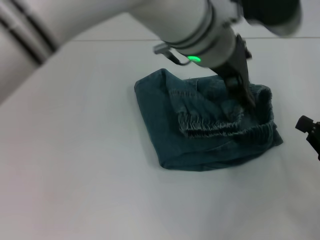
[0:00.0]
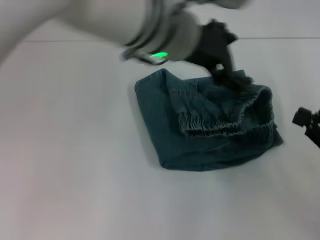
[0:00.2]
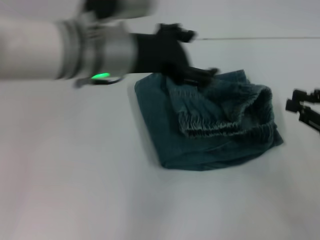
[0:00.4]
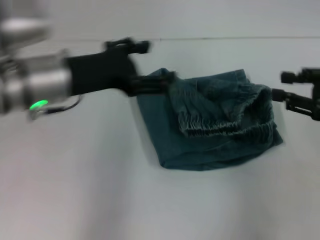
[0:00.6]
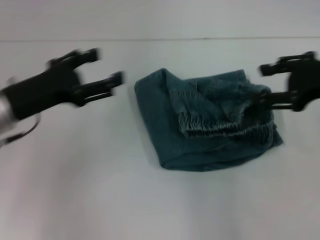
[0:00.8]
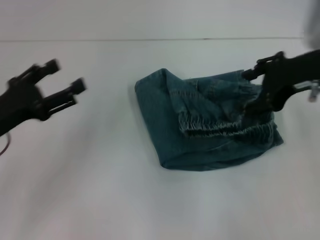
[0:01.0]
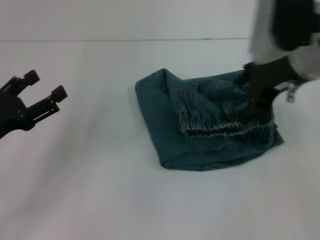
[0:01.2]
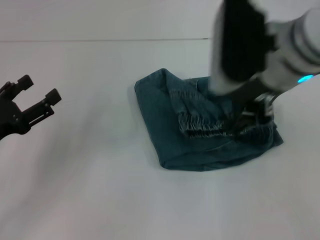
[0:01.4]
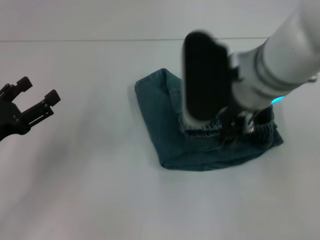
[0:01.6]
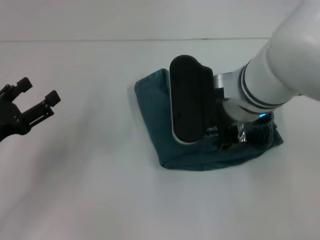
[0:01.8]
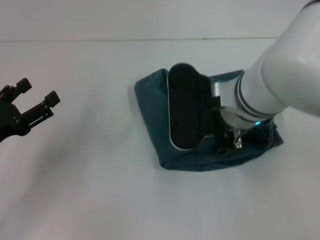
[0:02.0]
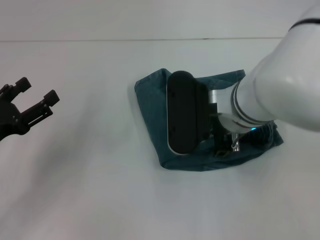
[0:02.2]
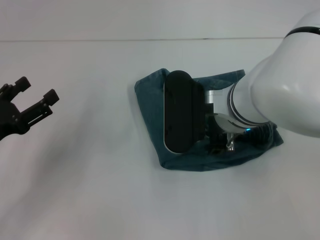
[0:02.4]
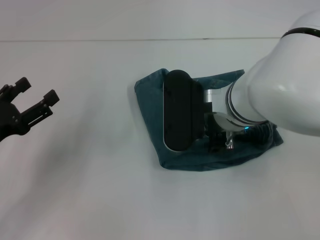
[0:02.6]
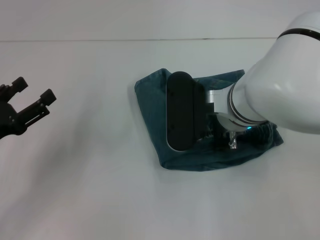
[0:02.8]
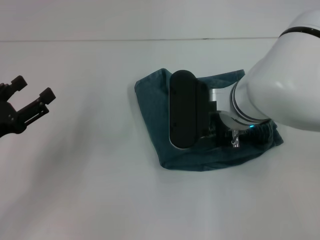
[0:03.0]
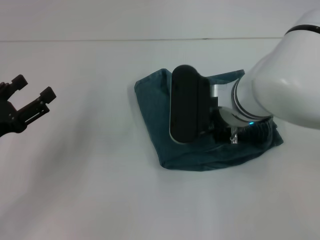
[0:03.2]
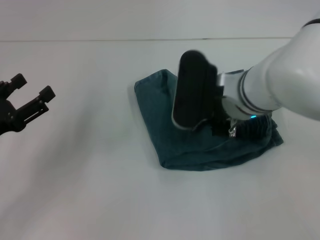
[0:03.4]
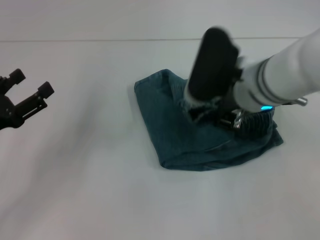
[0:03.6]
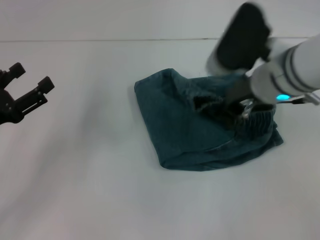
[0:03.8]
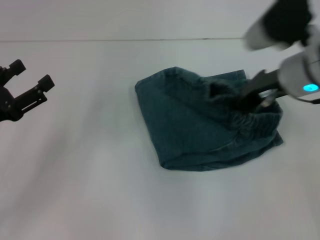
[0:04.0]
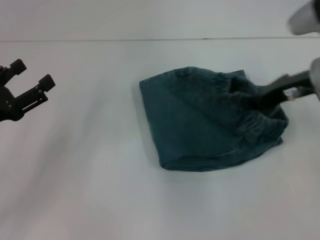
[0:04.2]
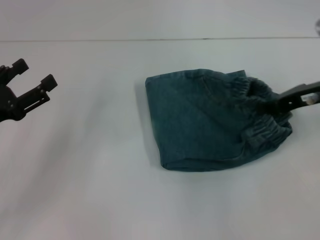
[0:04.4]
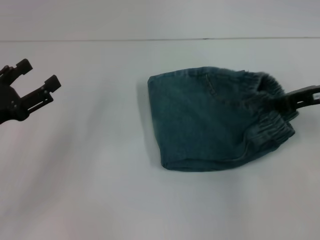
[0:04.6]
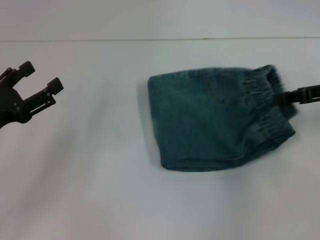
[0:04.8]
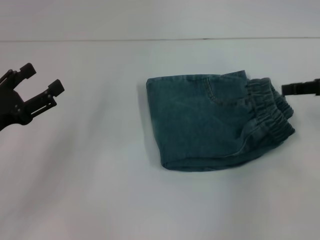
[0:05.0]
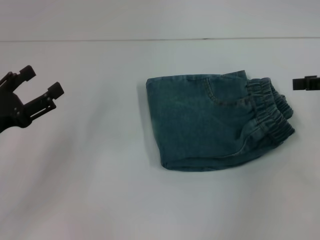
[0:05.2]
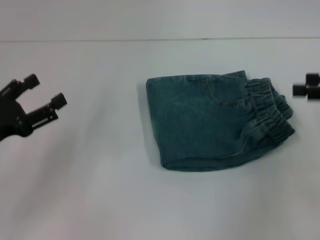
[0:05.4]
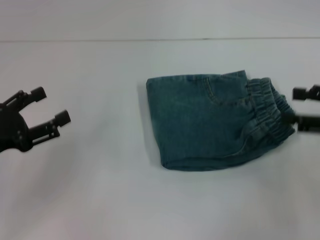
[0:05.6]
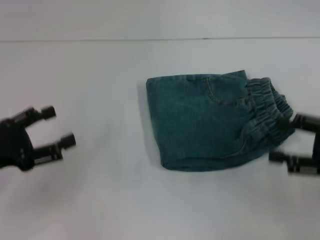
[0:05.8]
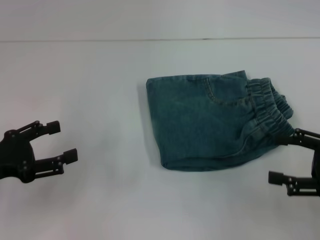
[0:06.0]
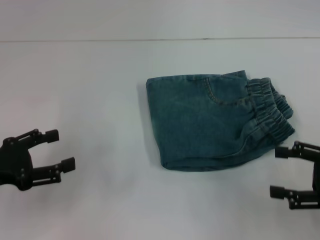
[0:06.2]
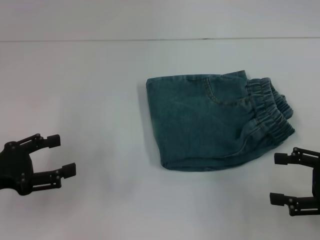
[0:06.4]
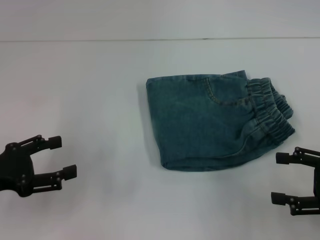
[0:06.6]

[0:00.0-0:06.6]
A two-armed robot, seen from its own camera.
Step, 0:00.4 to 0:04.8: Adjust the pants with your right hand.
0:00.0 to 0:01.6: The right gripper travels to the left, upward and forward by about 30 cm, and opens its fingers. Meanwhile the left gripper shifts approximately 35 cm to the left and downward.
0:01.6 to 0:03.2: The right gripper travels downward by approximately 5 cm, and closes.
0:03.2 to 0:05.0: The right gripper moves to the right, approximately 25 cm.
0:05.0 to 0:06.6: The right gripper heads backward and downward, covering some 15 cm, and opens up.

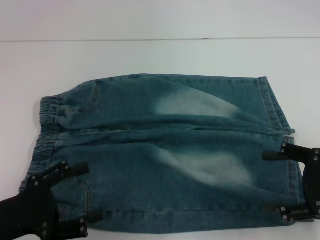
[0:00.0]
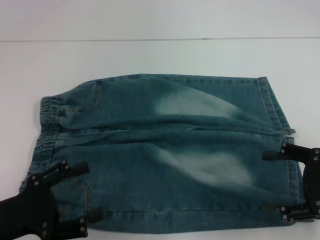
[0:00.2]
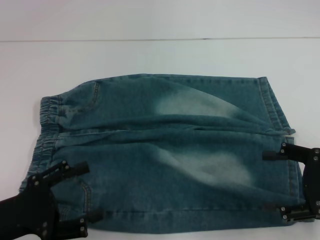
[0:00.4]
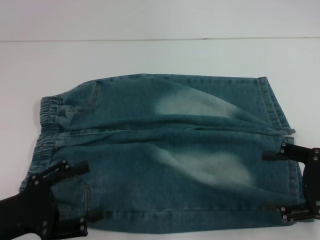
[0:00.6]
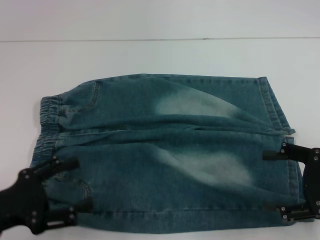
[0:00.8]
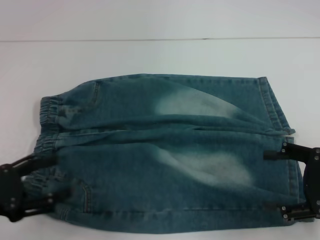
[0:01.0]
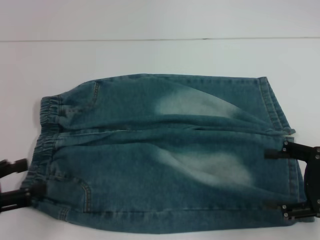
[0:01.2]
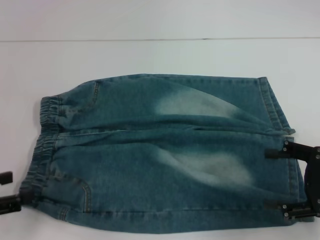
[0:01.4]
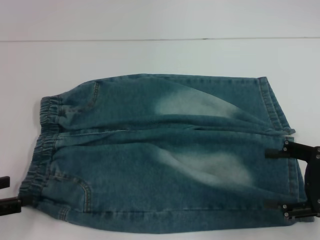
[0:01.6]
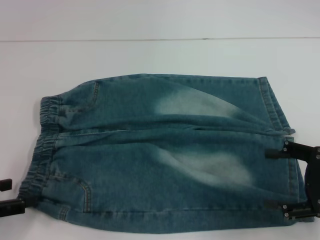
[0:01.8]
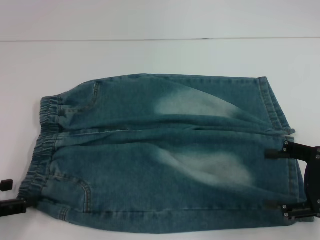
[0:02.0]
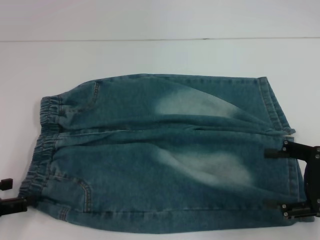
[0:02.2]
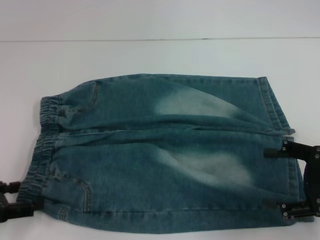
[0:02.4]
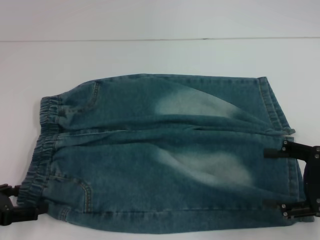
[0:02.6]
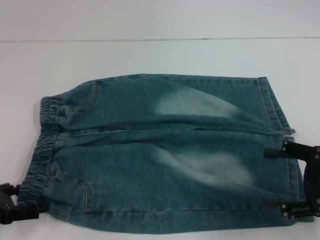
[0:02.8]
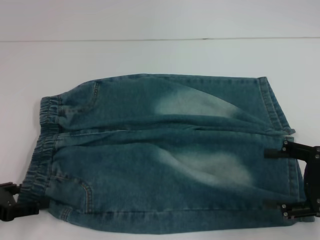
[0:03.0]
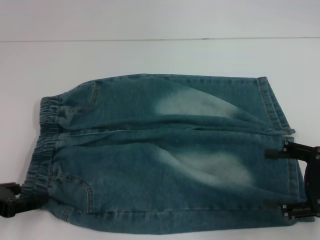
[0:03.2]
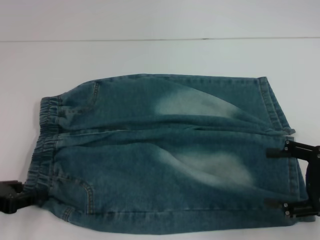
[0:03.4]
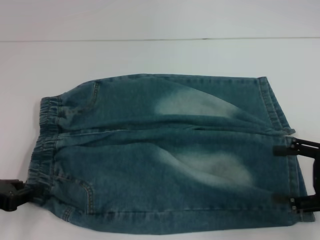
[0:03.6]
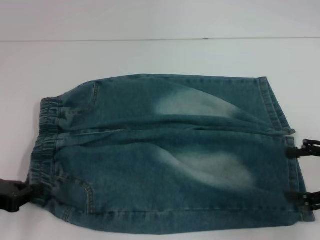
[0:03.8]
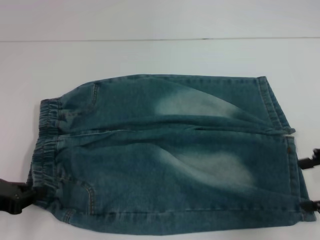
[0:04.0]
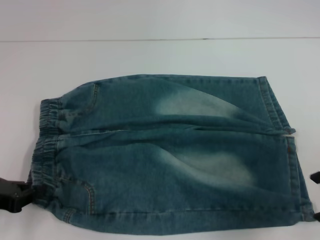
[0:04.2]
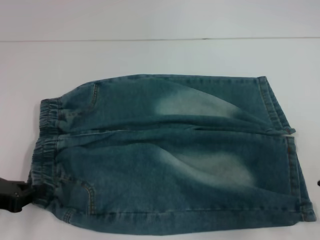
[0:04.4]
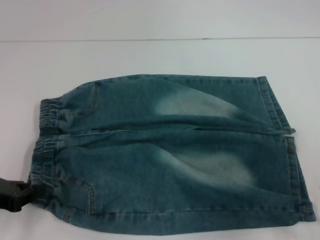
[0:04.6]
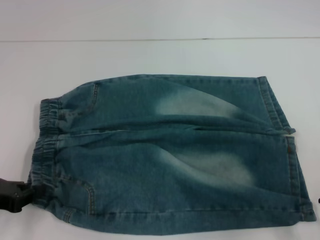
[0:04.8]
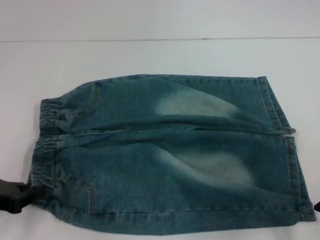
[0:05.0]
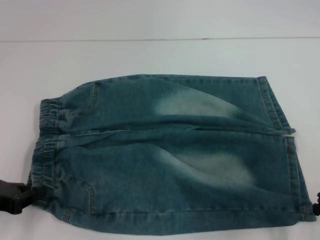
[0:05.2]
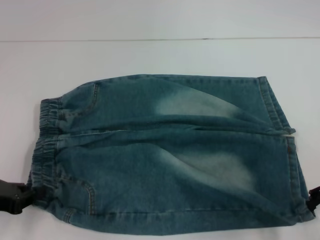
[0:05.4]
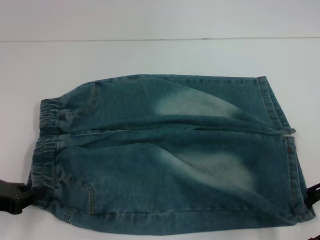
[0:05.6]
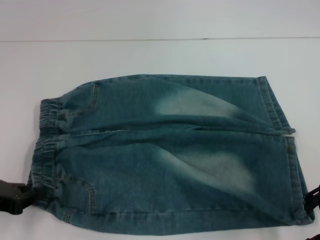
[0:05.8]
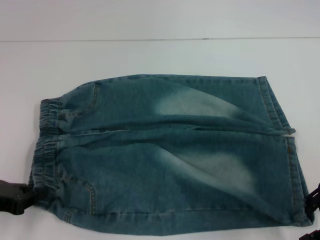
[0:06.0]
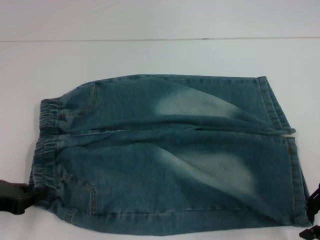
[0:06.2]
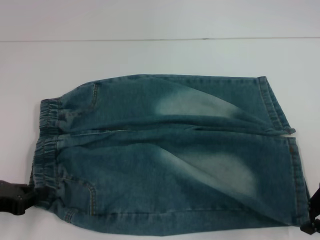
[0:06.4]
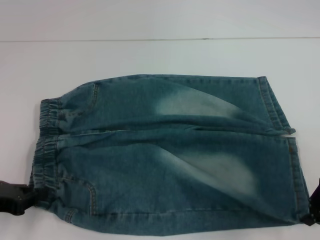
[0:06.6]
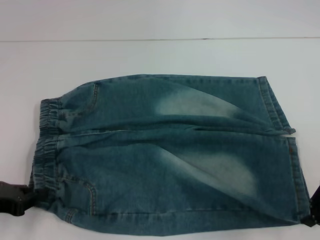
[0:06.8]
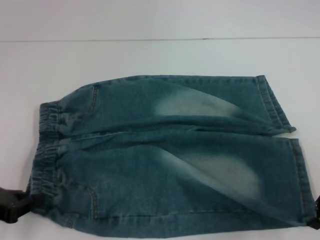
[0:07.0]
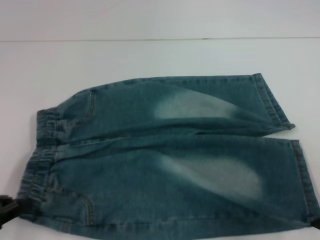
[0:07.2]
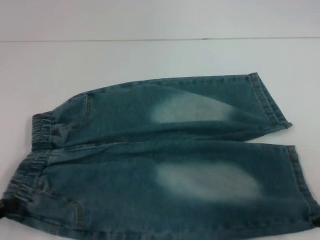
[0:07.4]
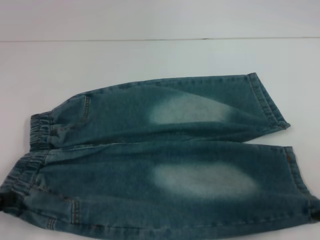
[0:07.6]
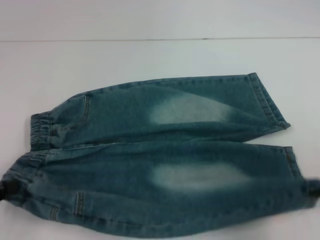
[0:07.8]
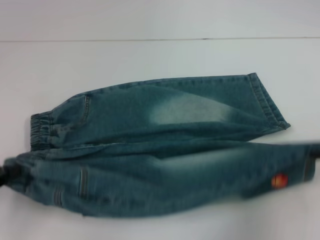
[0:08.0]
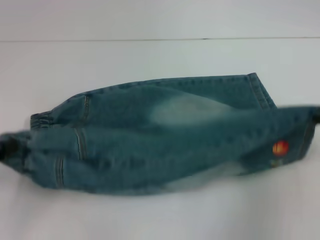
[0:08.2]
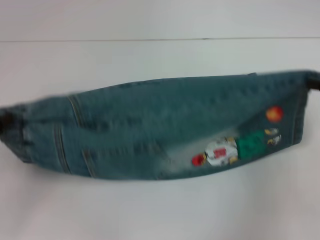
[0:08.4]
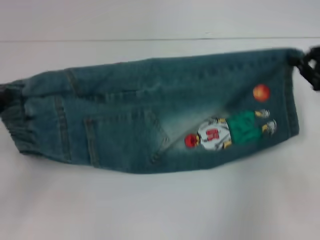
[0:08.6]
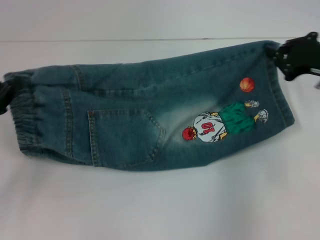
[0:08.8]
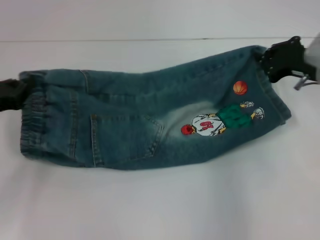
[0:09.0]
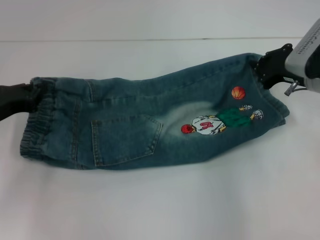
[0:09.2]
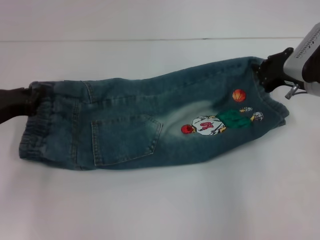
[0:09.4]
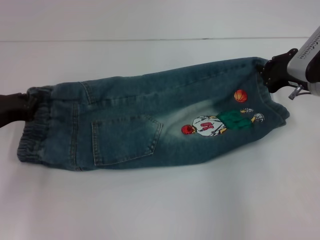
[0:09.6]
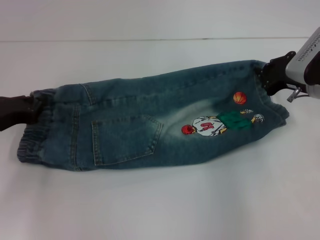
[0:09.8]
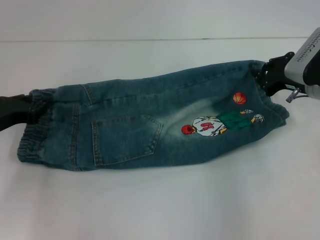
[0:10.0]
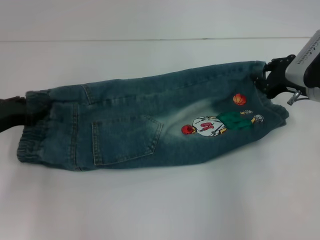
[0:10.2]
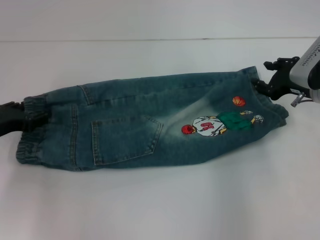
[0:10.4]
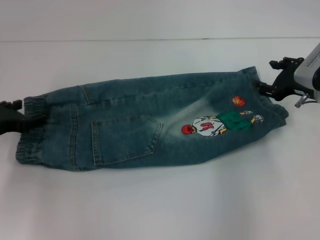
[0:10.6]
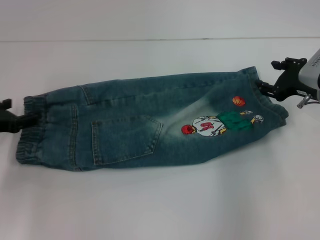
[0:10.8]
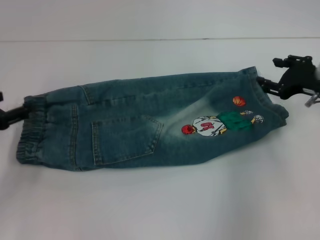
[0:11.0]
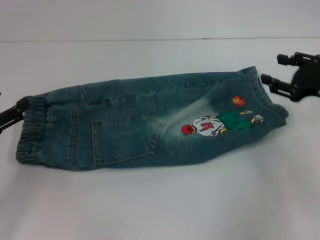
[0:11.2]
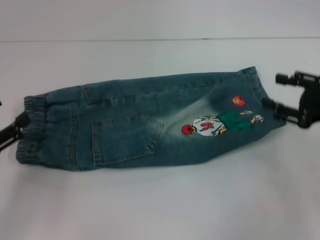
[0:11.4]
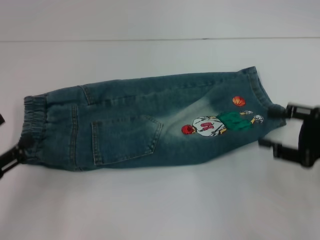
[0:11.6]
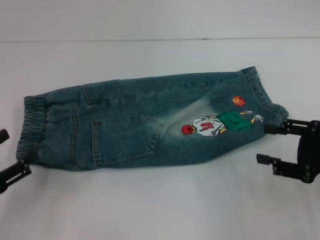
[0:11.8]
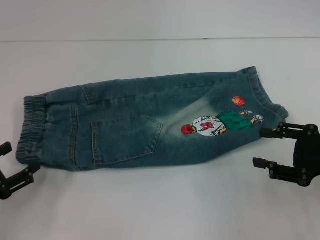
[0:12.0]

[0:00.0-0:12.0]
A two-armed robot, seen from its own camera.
Step, 0:00.0 to 0:03.2: Hold the lower left waistband with your left hand.
Step, 0:03.4 to 0:06.4: Grab the lower right pant leg with your right hand.
Step, 0:06.8 to 0:10.4: Fold upward with your right hand.
0:00.0 to 0:01.6: The left gripper shifts some 10 cm to the left.
0:01.6 to 0:03.0: There are only small adjustments of the grippers.
0:03.0 to 0:04.4: The left gripper closes. Meanwhile the right gripper shifts about 5 cm upward.
0:04.4 to 0:06.0: The grippers move only a little.
0:06.0 to 0:07.6: The right gripper closes its fingers. The left gripper shifts by about 5 cm.
0:07.6 to 0:09.0: The two grippers go some 15 cm forward.
0:09.0 to 0:10.4: The left gripper opens its fingers.
0:10.4 to 0:12.0: Both grippers move backward, roughly 15 cm. The right gripper opens its fingers. Meanwhile the left gripper opens up.

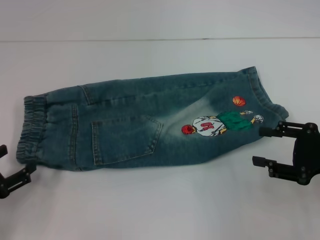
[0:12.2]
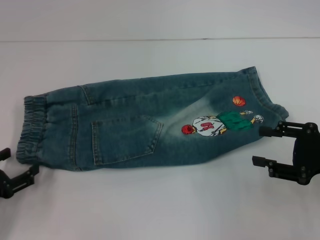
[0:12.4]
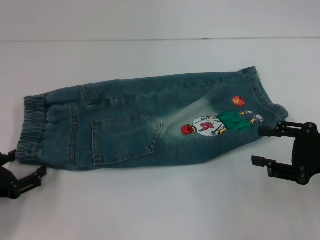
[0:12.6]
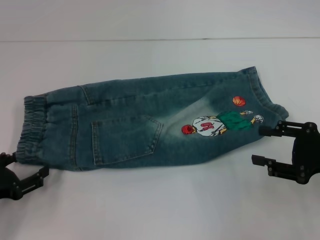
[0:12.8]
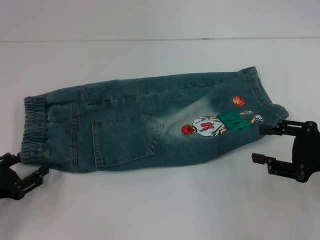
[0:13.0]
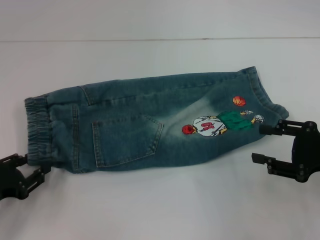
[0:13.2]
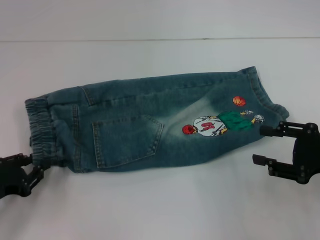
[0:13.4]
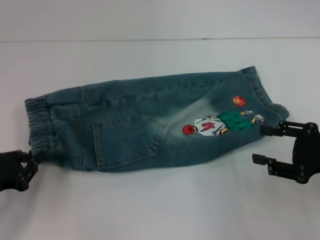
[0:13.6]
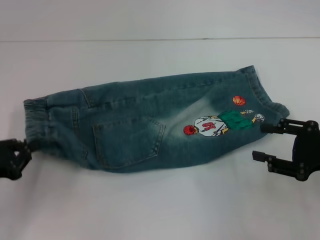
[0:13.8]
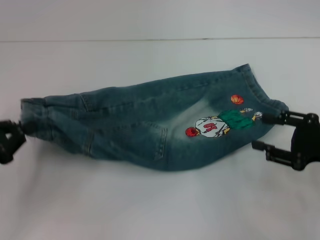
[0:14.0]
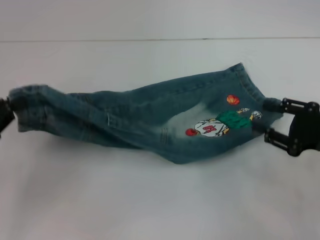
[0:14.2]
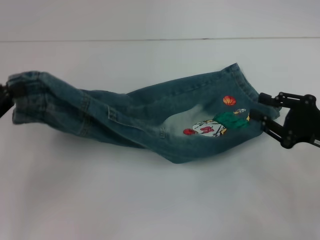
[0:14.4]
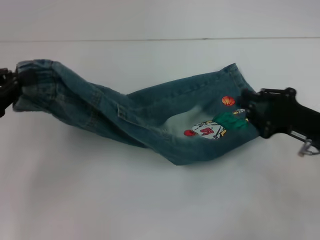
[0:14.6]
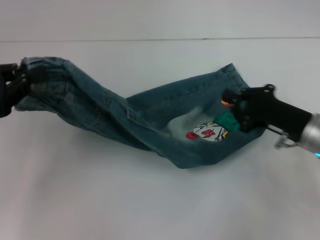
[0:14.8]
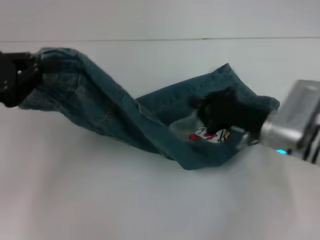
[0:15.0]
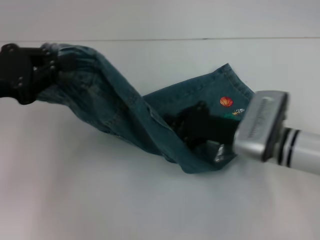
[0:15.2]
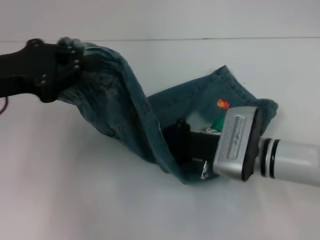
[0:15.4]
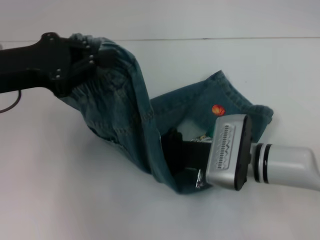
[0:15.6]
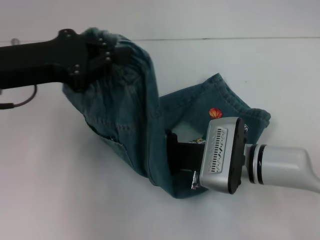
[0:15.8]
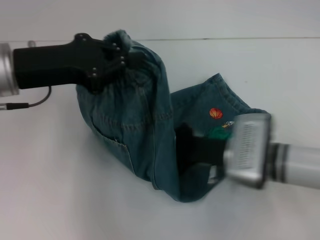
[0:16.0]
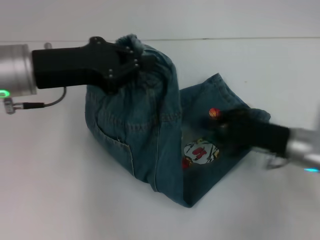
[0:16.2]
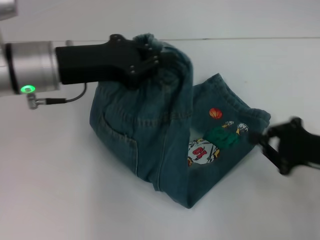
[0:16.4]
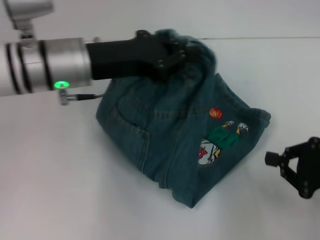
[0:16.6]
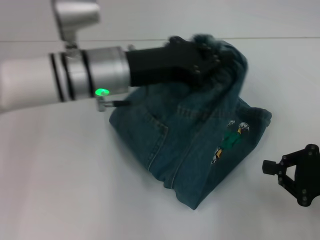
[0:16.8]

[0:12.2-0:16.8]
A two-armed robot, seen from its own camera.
Step, 0:13.6 to 0:15.8: Press the middle of the pants with your right hand.
0:12.2 to 0:13.8: The left gripper closes its fingers.
0:13.8 to 0:15.2: The left gripper shifts roughly 15 cm upward and forward, while the right gripper moves to the left and forward, about 15 cm, and closes up.
0:15.2 to 0:16.8: The left gripper shifts approximately 20 cm to the right. Meanwhile the right gripper shifts roughly 20 cm to the right and backward.
